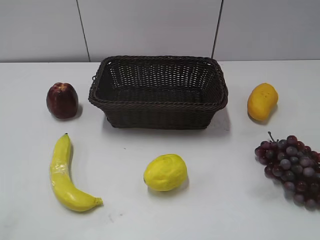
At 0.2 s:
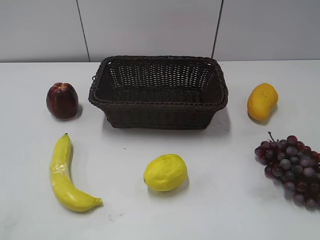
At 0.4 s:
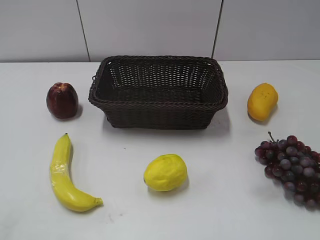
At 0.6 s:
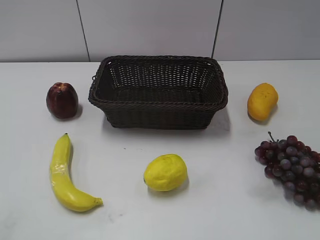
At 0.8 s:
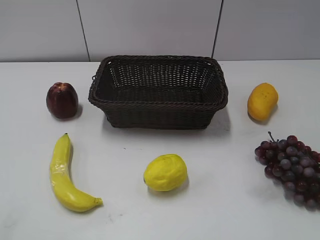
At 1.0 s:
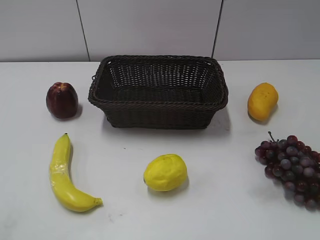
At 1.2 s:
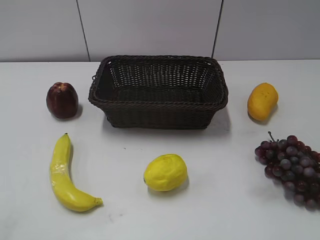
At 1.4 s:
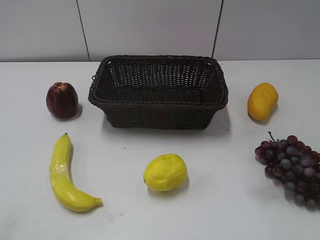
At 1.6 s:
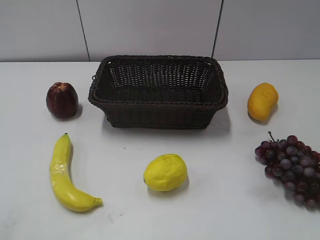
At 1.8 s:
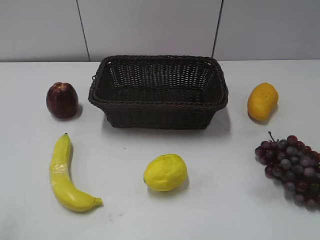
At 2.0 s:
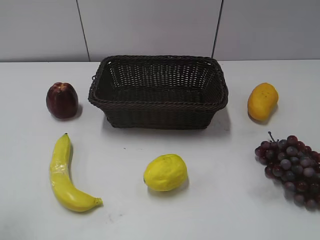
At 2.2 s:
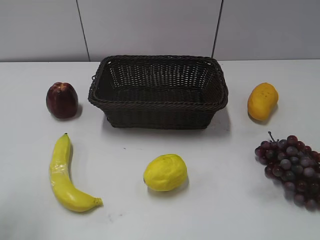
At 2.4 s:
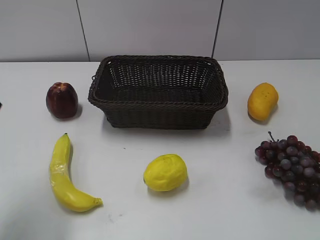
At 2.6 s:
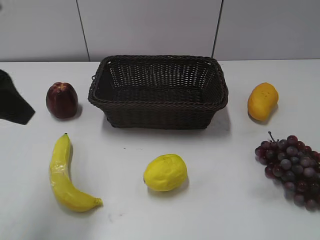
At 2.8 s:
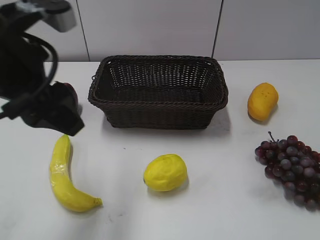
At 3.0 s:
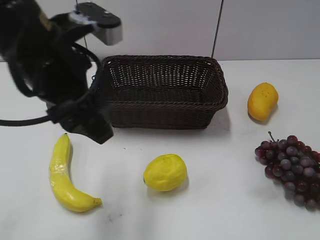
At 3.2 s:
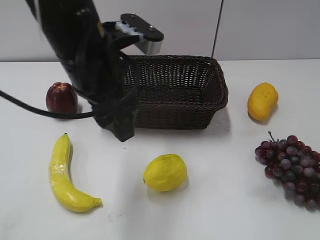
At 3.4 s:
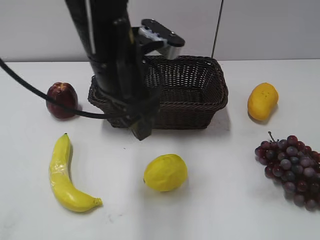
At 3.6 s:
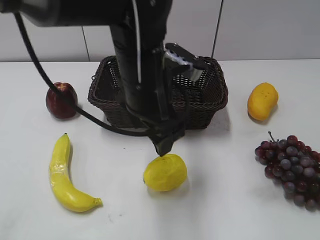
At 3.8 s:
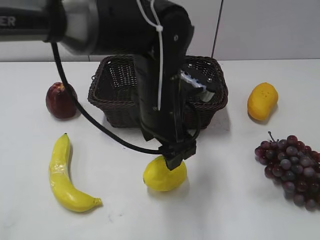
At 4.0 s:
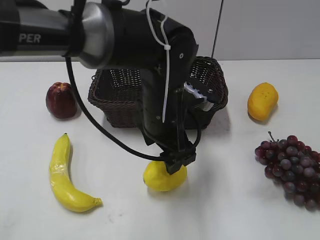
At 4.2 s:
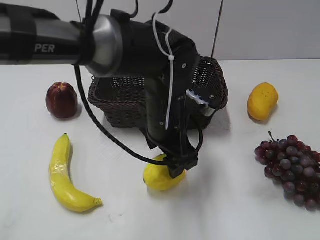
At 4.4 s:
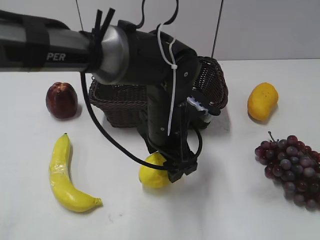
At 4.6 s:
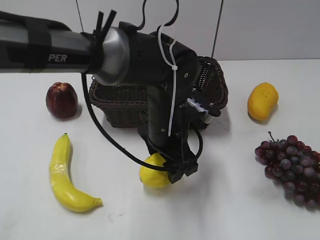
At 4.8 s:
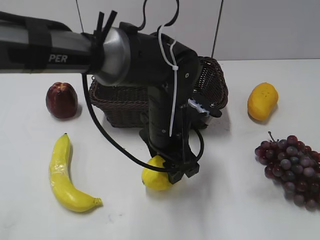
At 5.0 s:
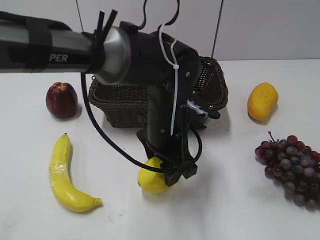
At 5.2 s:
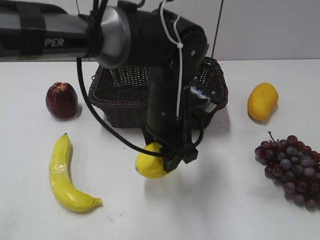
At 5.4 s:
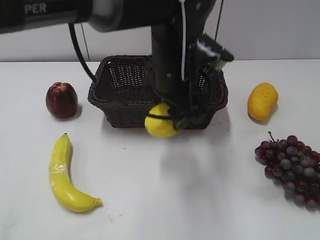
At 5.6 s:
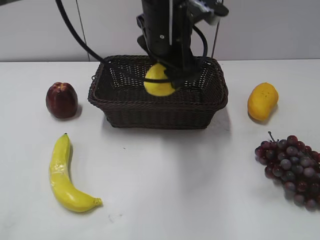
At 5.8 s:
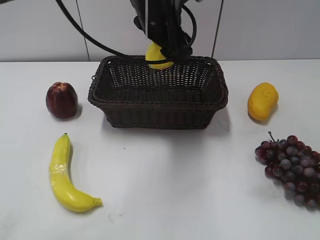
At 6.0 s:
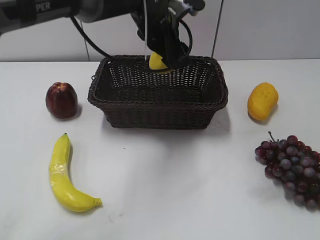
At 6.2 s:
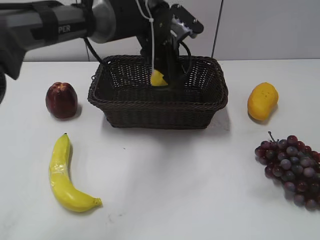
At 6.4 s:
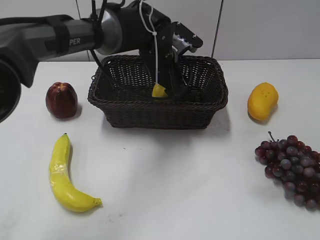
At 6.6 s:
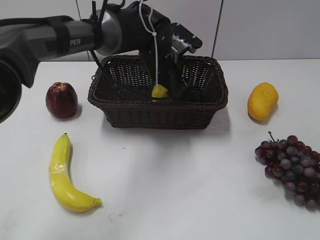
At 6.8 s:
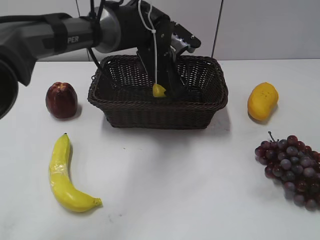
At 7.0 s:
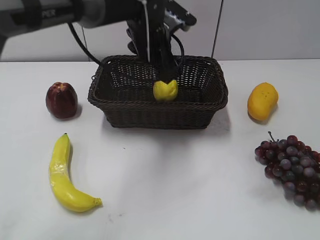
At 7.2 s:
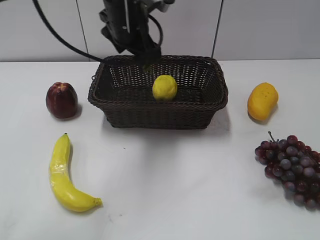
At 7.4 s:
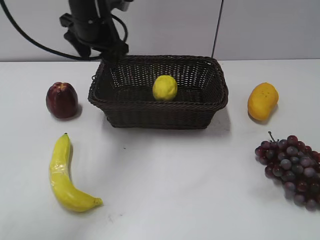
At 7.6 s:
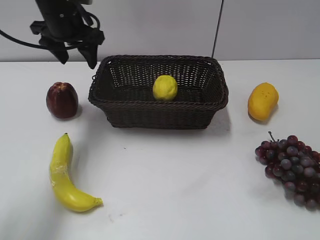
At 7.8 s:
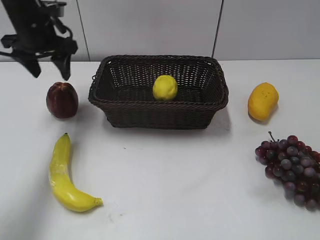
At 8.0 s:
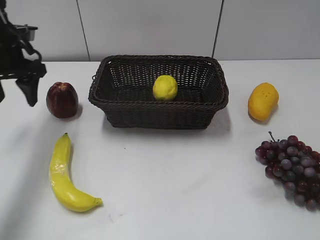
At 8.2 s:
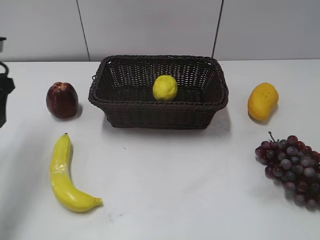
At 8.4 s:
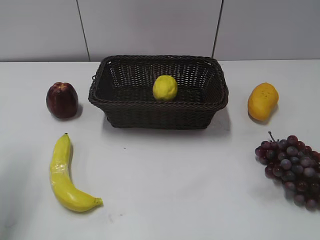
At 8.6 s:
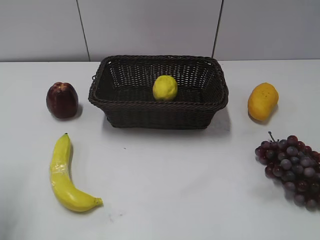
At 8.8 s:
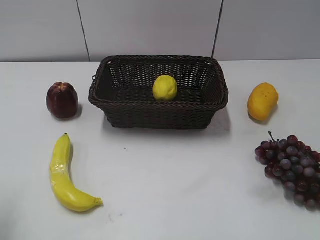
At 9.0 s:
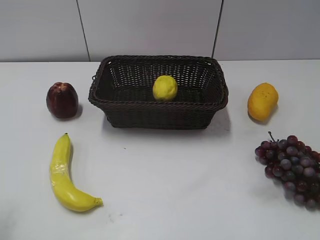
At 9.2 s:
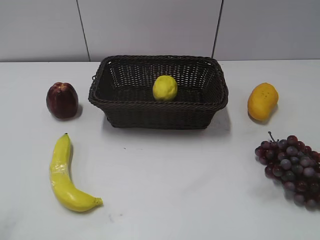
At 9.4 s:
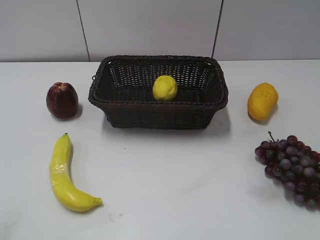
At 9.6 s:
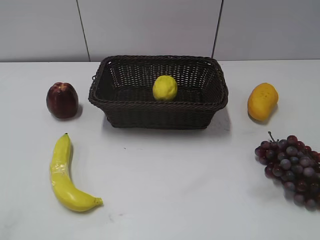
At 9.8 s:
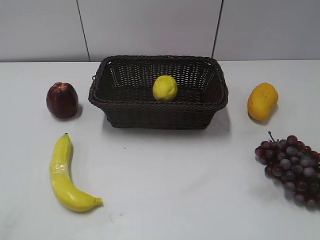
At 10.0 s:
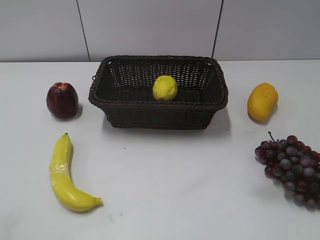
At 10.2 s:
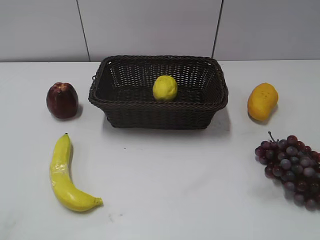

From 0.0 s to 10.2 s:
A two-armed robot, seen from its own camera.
Step, from 2.4 s to 5.0 s: Grasp the lemon with left gripper.
Step, from 5.4 s to 7.0 s: Place the lemon in the basket with left gripper.
From 1.4 s to 3.0 s: The left gripper moves forward and to the right, some 30 cm.
From 3.0 s to 4.4 s: The left gripper moves downward and to the right, roughly 20 cm.
From 4.4 s to 5.8 s: The left gripper heads upward and forward, covering about 15 cm, and closes up.
From 5.8 s to 7.2 s: The left gripper is displaced to the left by about 5 cm, reaches some 10 cm downward, then returns, and opens.
From 7.2 s to 8.8 s: The left gripper is displaced to the left and backward by approximately 35 cm, and closes.
